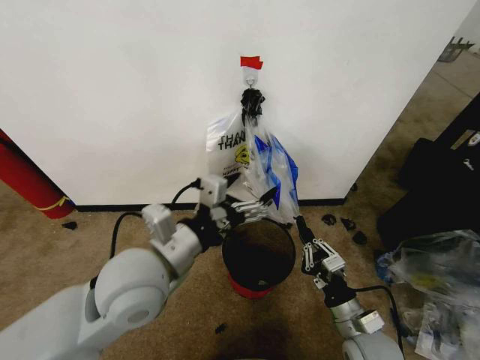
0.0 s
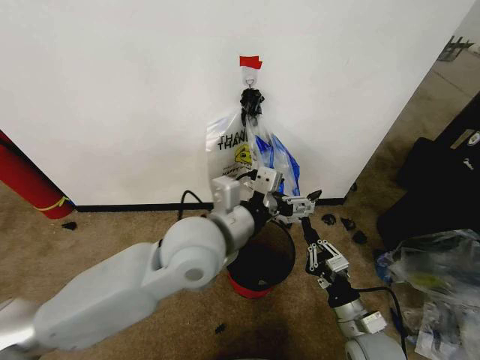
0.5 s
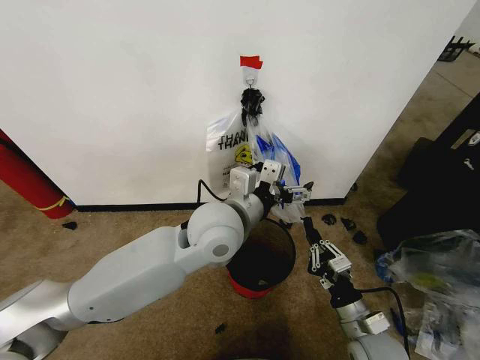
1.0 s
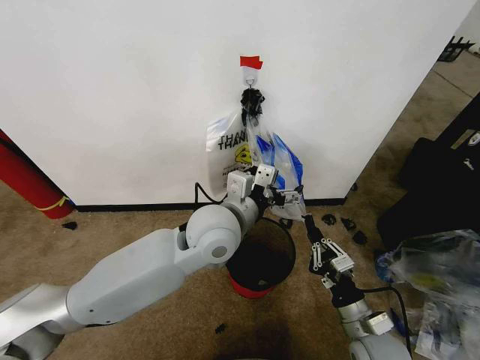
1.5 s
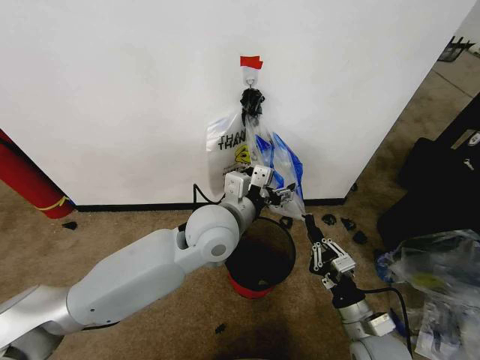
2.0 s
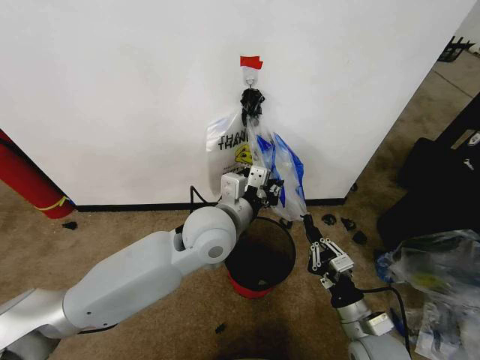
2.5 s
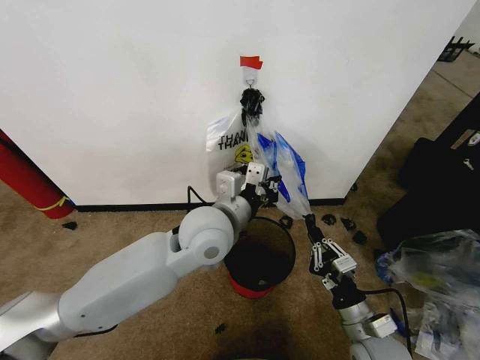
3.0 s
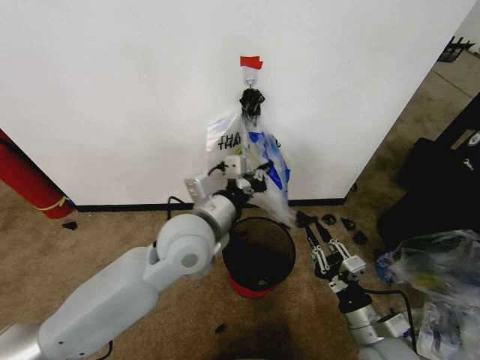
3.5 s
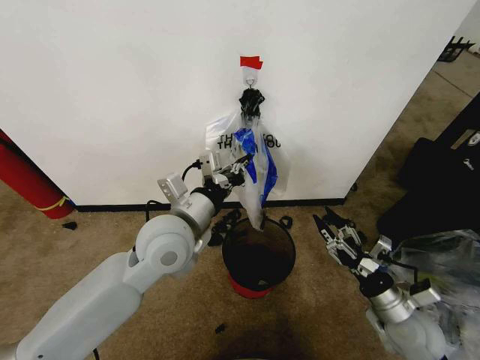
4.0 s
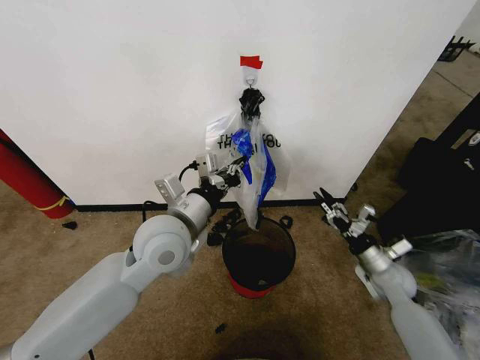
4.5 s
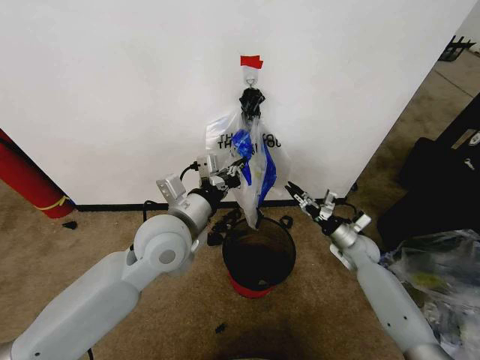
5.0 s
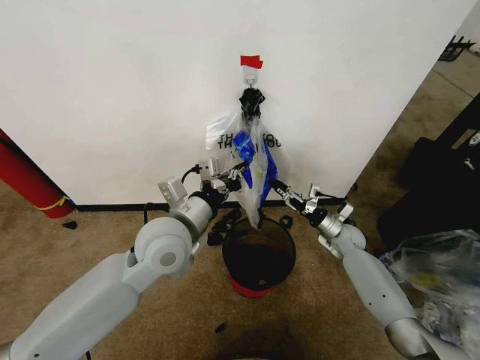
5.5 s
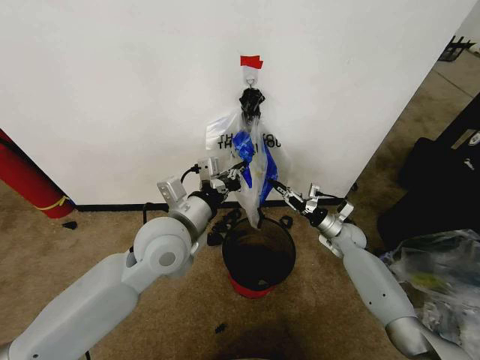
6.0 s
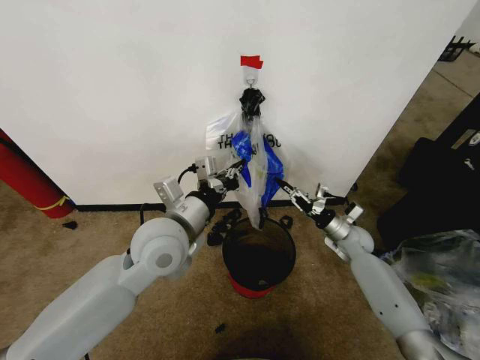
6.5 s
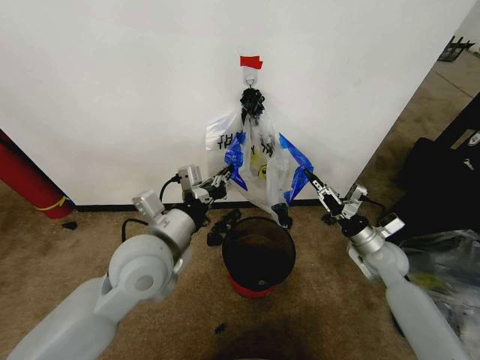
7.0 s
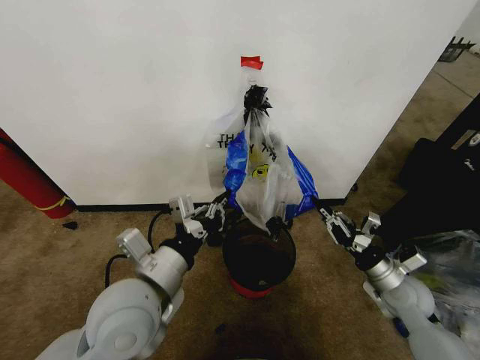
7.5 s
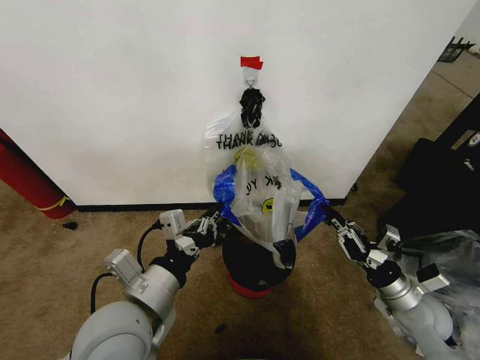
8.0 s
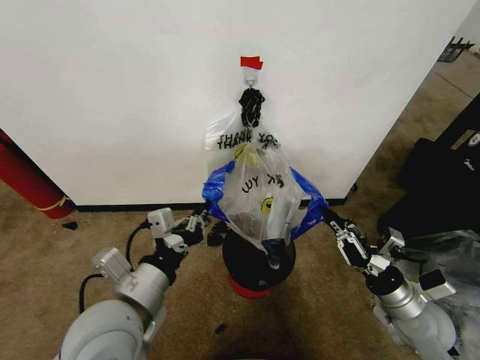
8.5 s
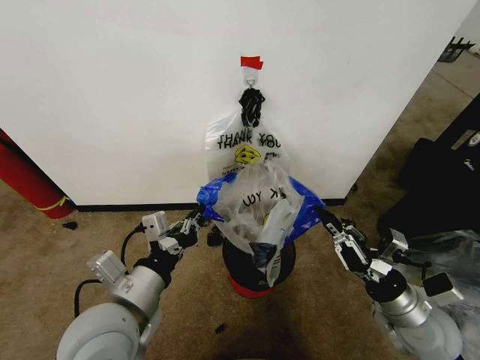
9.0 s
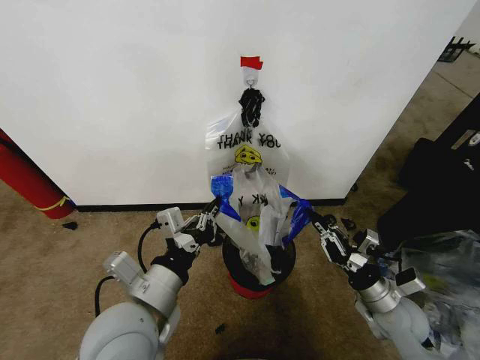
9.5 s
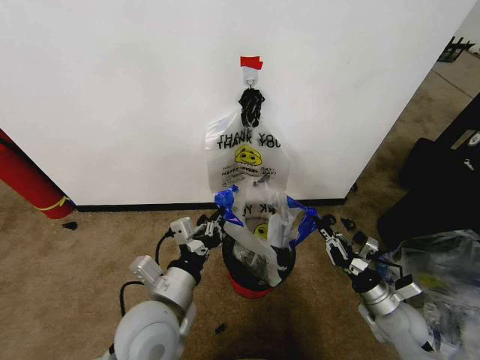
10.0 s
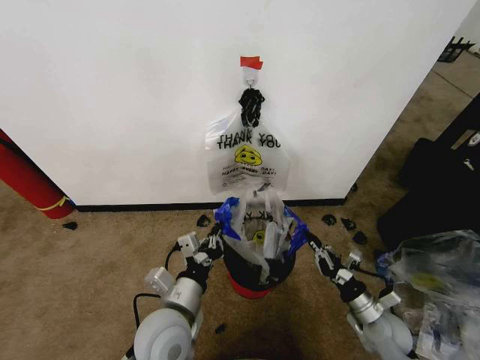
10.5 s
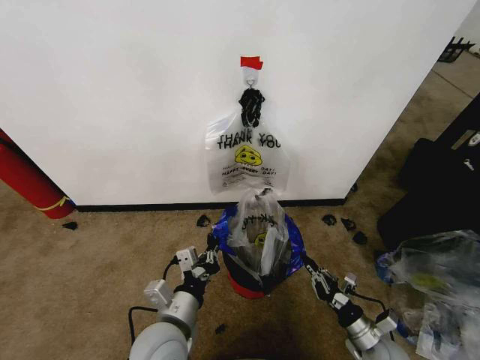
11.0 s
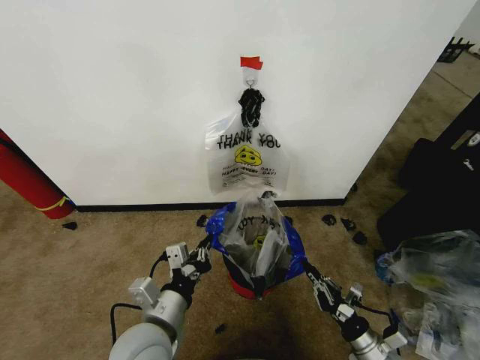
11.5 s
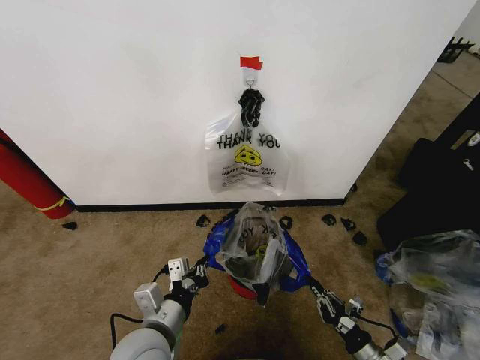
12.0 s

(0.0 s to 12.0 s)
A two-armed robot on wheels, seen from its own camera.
Task of the whole recording: Pick up the garbage bag from the wall and place it over the trash bin.
0.0 s - 2.0 s: The left gripper moves forward and to the right, approximately 15 cm.
2.0 s - 4.0 s: The left gripper is displaced to the left by approximately 10 cm, and closes up; the right gripper heads to the right, covering approximately 10 cm, and opens up.
4.0 s - 6.0 s: The right gripper shifts roughly 25 cm forward, and closes.
6.0 s - 8.0 s: The left gripper goes some 15 cm backward; the right gripper moves backward, roughly 25 cm.
8.0 s - 10.0 s: Both grippers move downward, approximately 5 cm.
10.0 s - 12.0 s: The right gripper travels backward and downward by some 15 cm; the left gripper travels downward by about 5 cm.

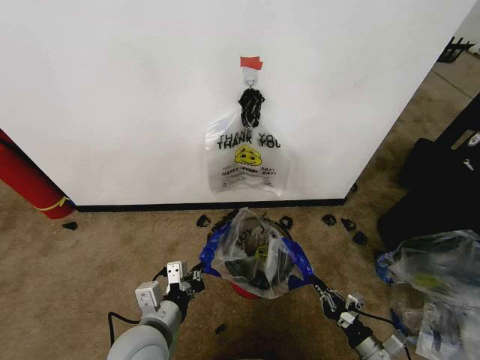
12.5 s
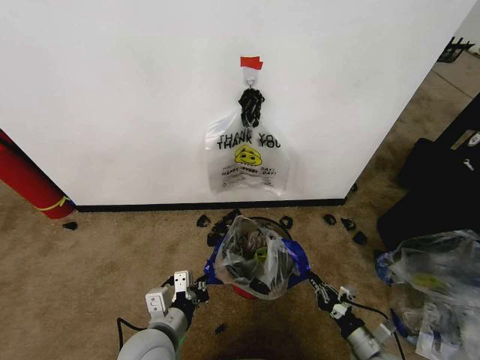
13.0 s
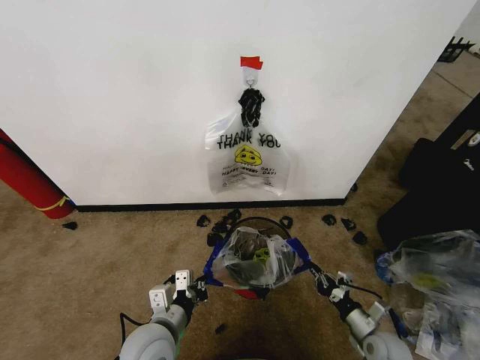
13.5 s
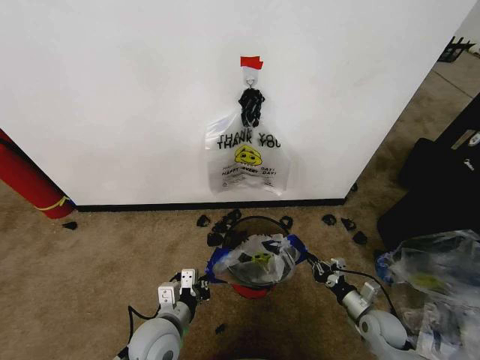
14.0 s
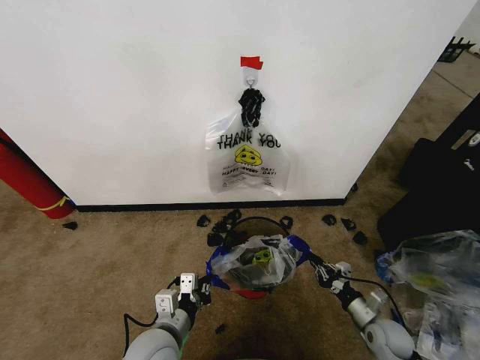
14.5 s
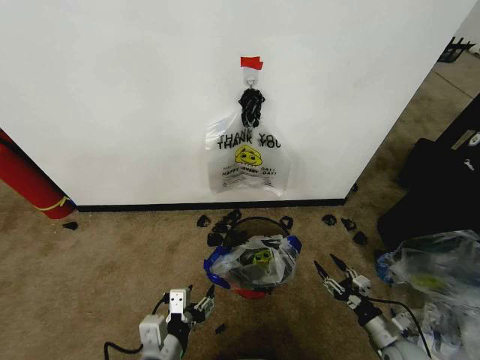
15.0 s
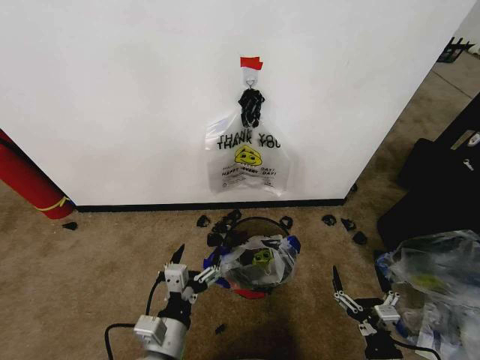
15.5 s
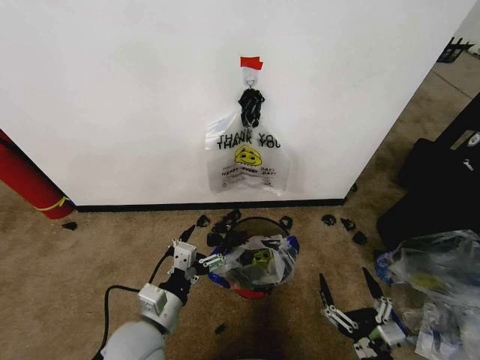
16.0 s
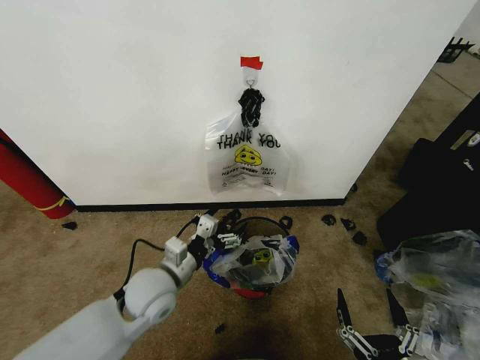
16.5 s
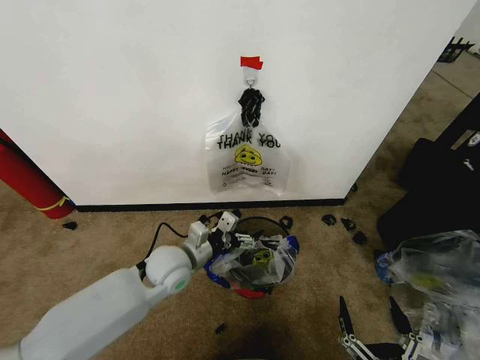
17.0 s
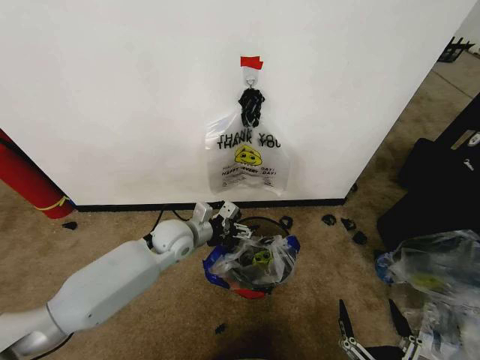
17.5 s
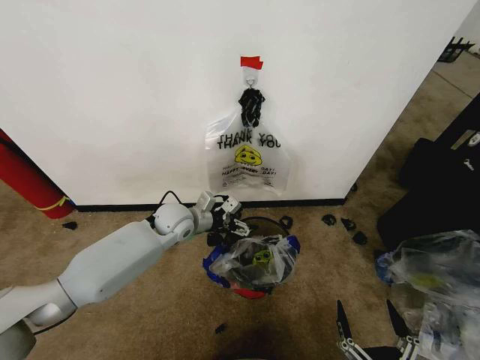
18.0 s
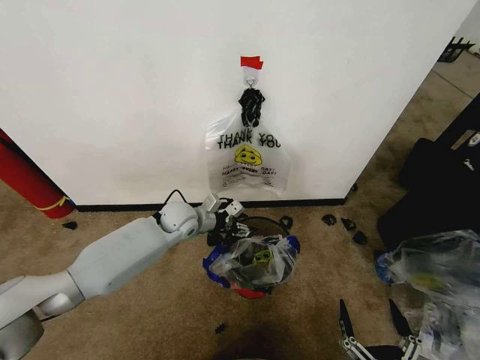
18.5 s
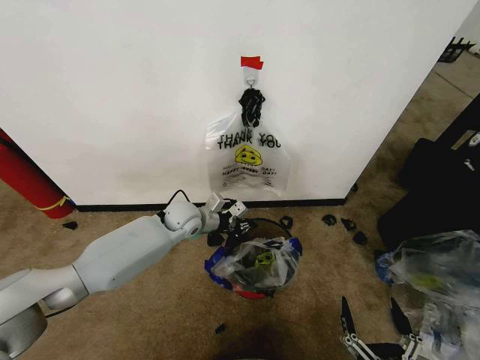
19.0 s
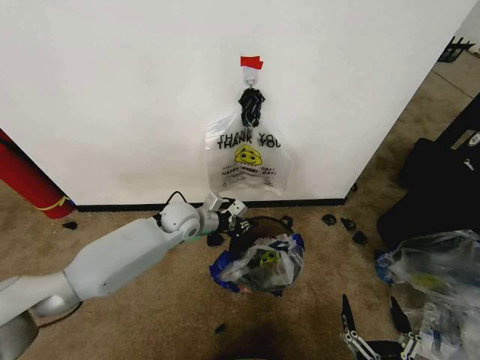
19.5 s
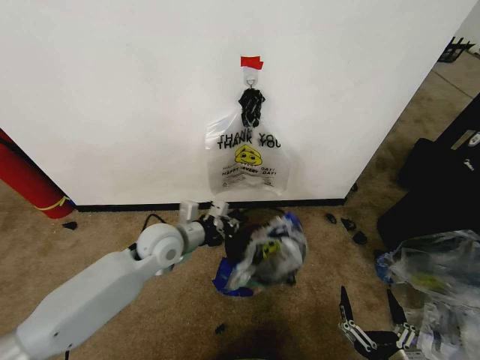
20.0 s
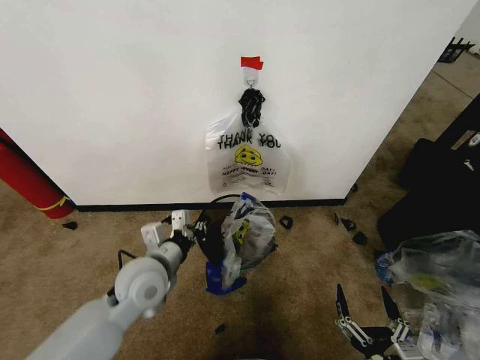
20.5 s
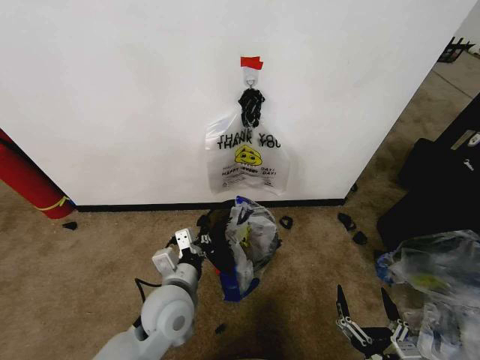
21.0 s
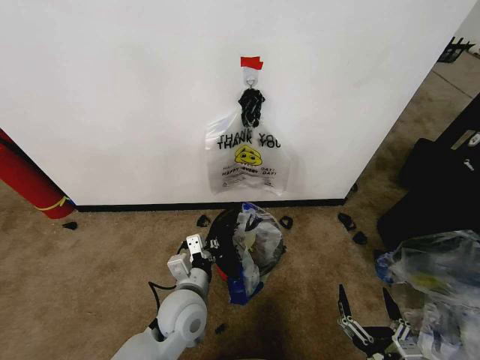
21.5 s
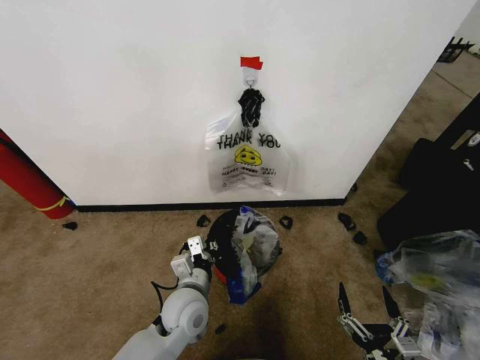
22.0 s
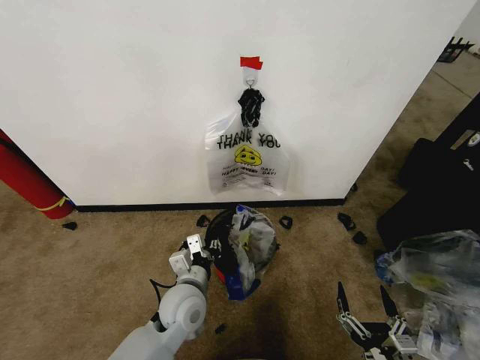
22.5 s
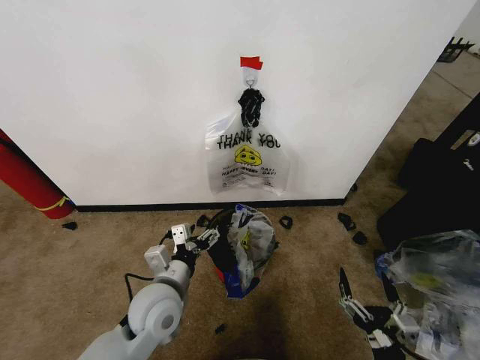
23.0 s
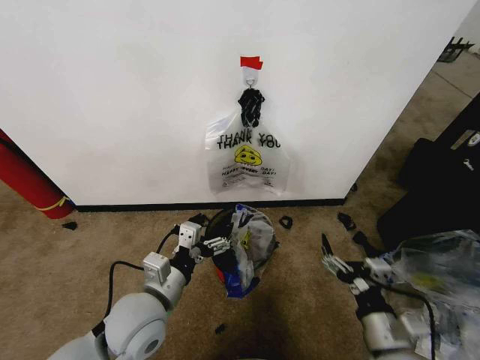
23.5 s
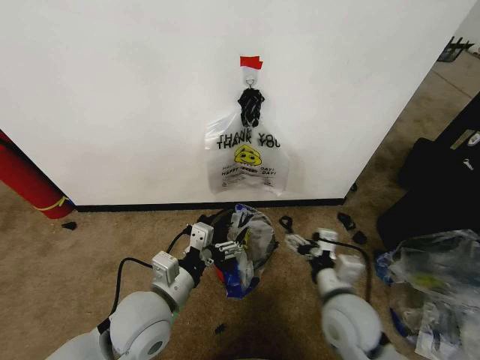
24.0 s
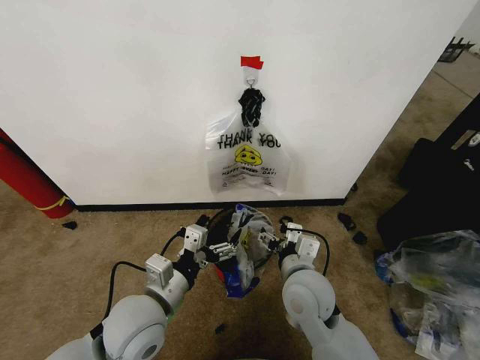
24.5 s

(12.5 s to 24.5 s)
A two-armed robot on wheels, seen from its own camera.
Task of the whole recording: Pick up the garbage bag from the wall and place it over the trash bin.
12.5 s - 14.5 s: The left gripper goes roughly 5 cm downward, while the right gripper heads forward, covering some 10 cm.
14.5 s - 16.5 s: The right gripper moves backward, upward and to the left, about 30 cm, and opens its fingers; the left gripper is displaced forward and upward by about 10 cm, and opens.
16.5 s - 18.5 s: The left gripper travels forward by approximately 20 cm, and closes its fingers.
18.5 s - 20.5 s: The left gripper is displaced backward by some 20 cm, and closes up.
20.5 s - 22.5 s: The left gripper is displaced downward and to the right by about 10 cm.
22.5 s - 24.5 s: The right gripper travels forward, to the left and upward by roughly 30 cm, while the left gripper moves upward, backward and to the left, roughly 10 cm, and opens its fingers.

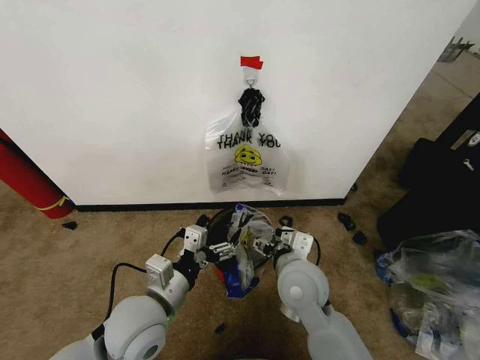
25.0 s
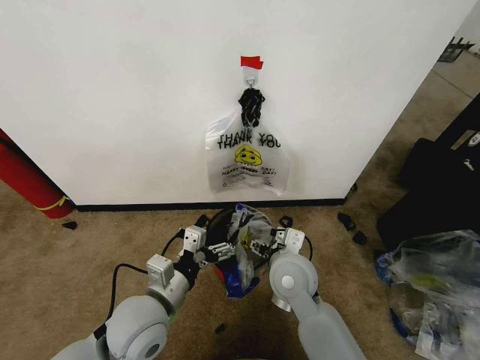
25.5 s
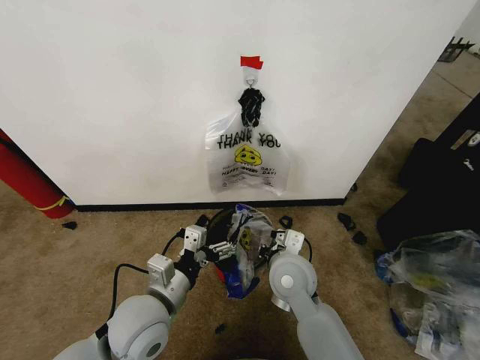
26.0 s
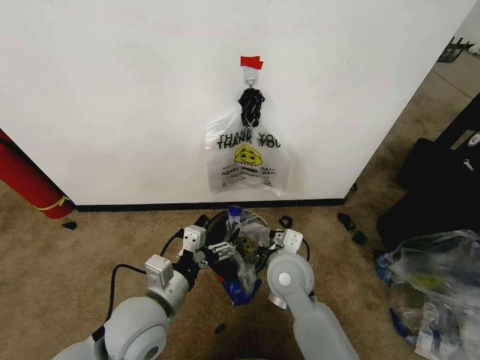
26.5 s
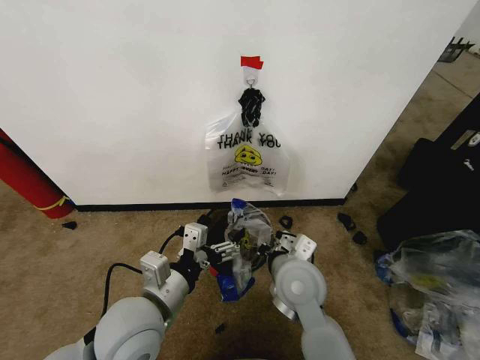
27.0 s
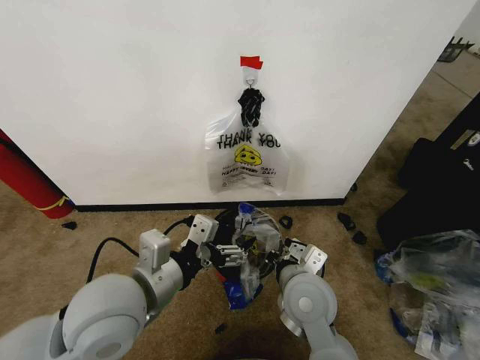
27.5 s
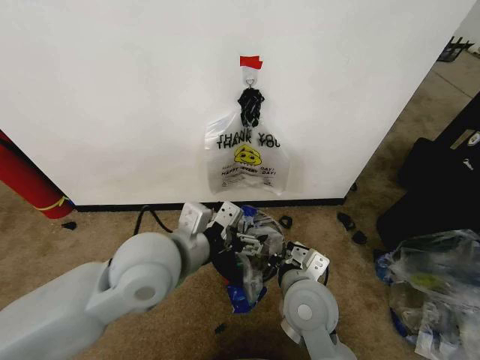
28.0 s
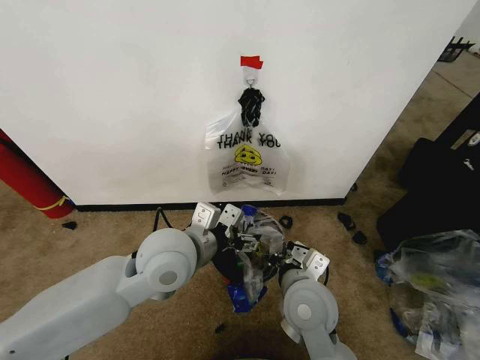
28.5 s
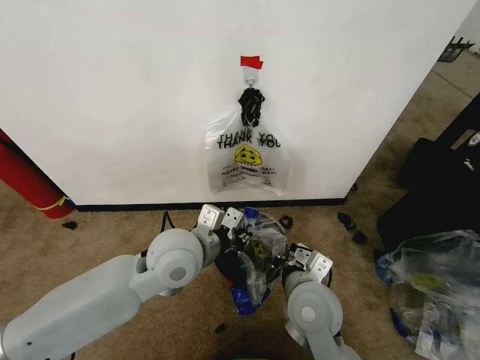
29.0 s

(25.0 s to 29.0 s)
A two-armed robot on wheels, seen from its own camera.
Task of the whole recording: Pick up the garbage bag from the wall and place it over the trash bin.
25.0 s - 27.0 s: The right gripper closes.
27.0 s - 29.0 s: The right gripper ends up about 5 cm from where it was, while the left gripper shifts approximately 15 cm forward, to the right and upward, and closes up.
